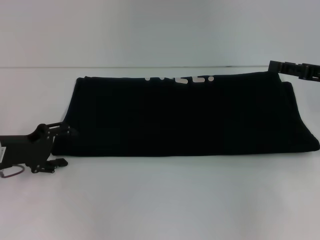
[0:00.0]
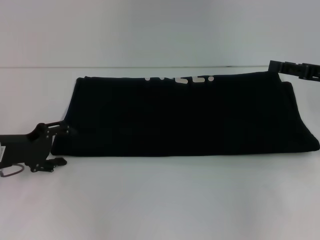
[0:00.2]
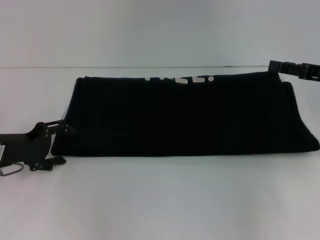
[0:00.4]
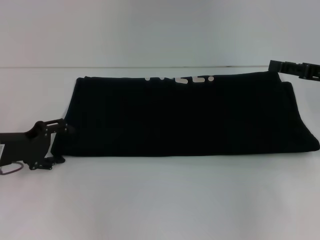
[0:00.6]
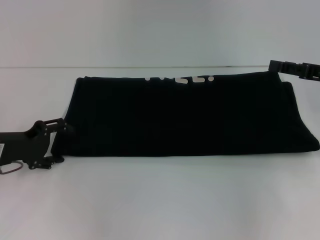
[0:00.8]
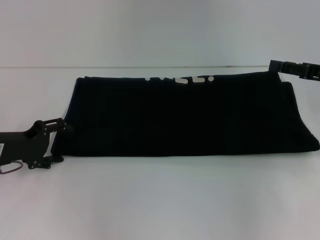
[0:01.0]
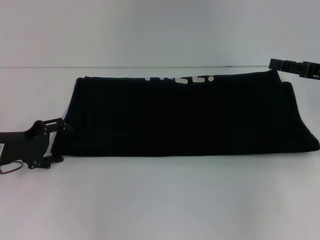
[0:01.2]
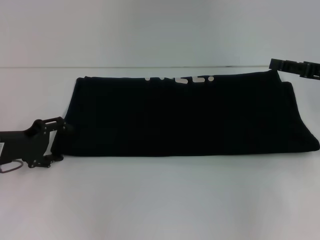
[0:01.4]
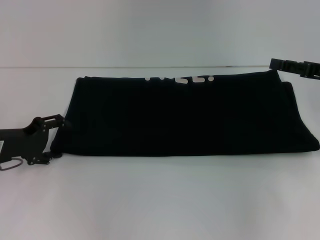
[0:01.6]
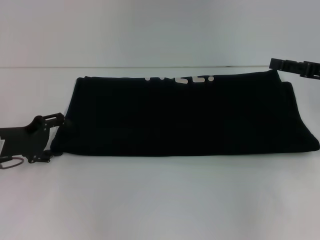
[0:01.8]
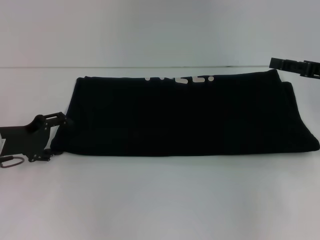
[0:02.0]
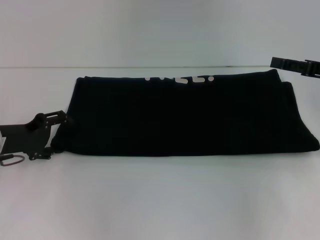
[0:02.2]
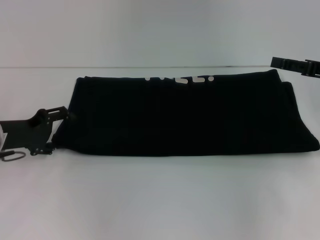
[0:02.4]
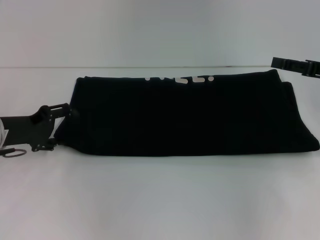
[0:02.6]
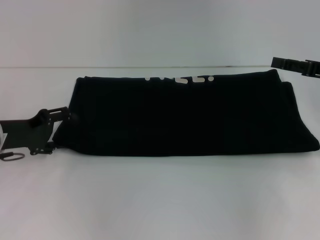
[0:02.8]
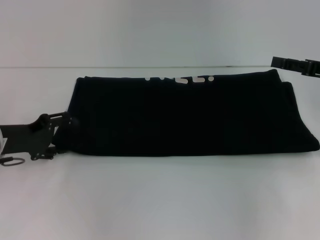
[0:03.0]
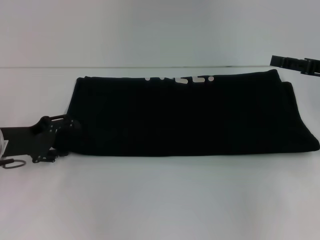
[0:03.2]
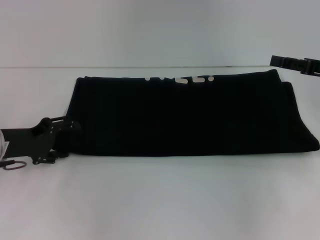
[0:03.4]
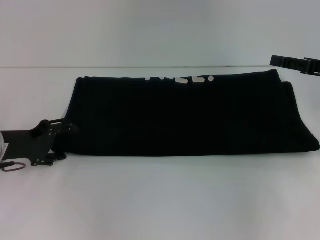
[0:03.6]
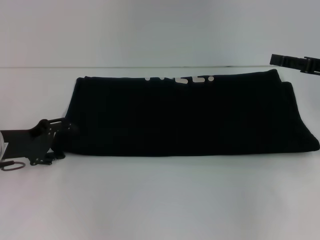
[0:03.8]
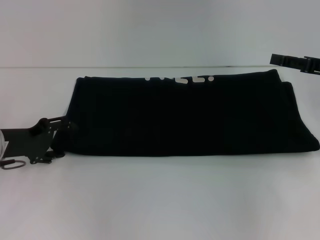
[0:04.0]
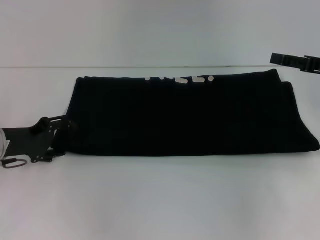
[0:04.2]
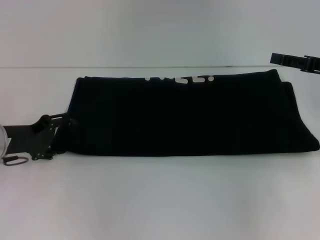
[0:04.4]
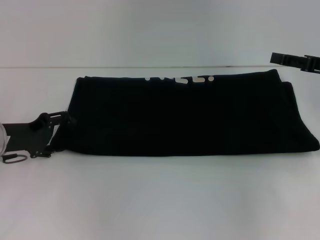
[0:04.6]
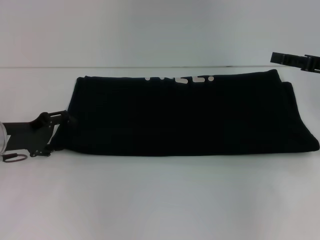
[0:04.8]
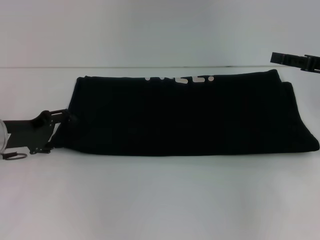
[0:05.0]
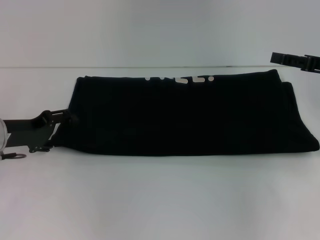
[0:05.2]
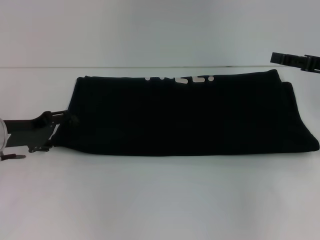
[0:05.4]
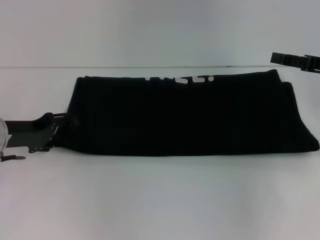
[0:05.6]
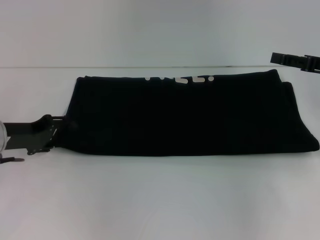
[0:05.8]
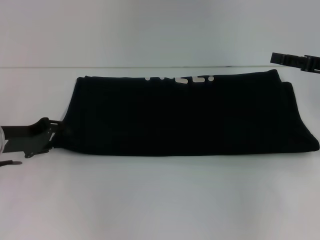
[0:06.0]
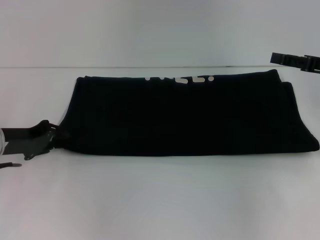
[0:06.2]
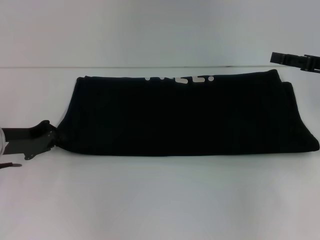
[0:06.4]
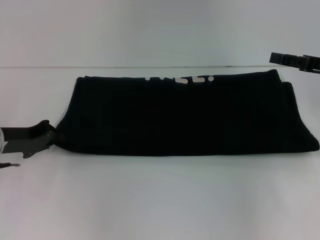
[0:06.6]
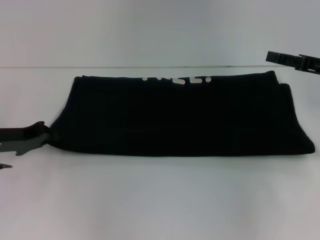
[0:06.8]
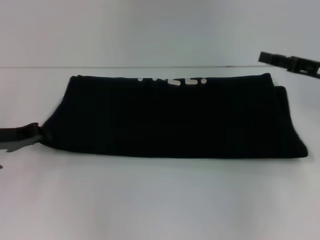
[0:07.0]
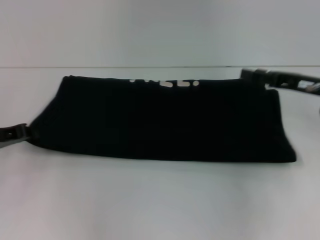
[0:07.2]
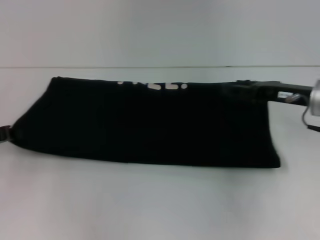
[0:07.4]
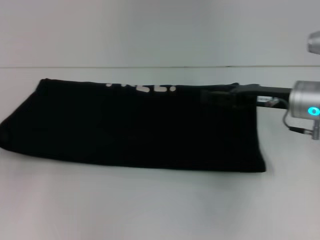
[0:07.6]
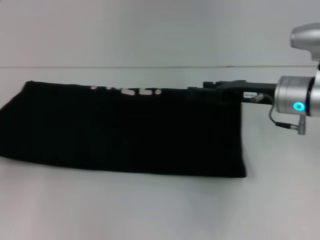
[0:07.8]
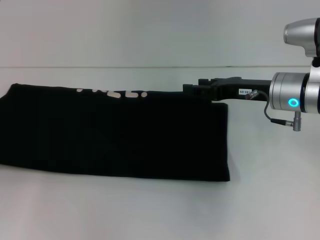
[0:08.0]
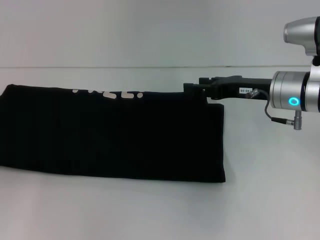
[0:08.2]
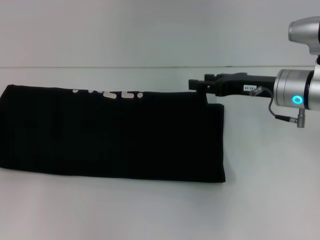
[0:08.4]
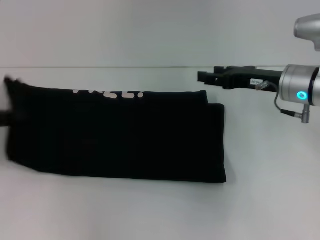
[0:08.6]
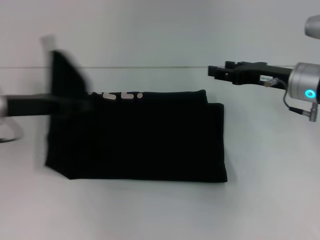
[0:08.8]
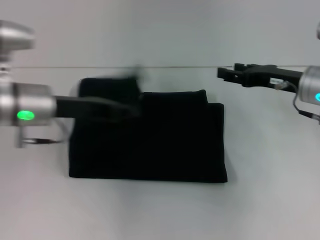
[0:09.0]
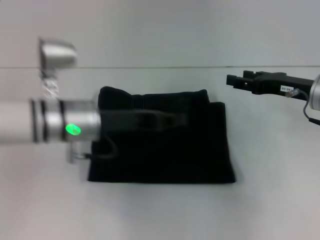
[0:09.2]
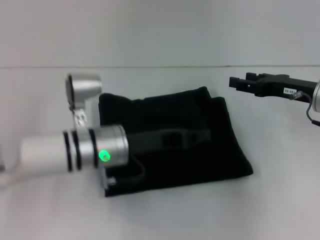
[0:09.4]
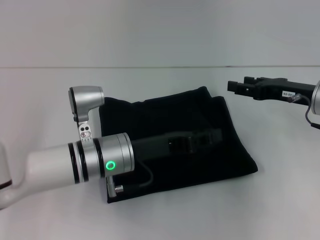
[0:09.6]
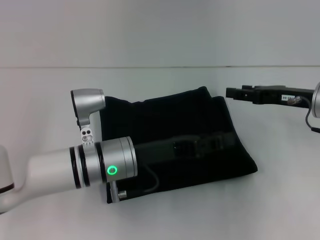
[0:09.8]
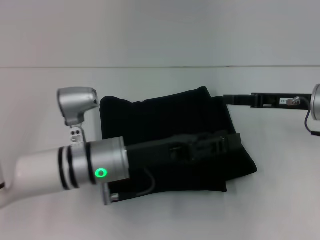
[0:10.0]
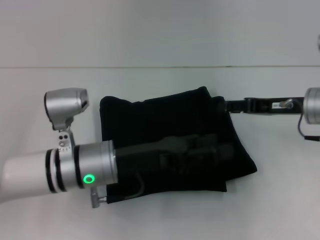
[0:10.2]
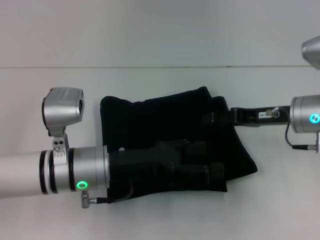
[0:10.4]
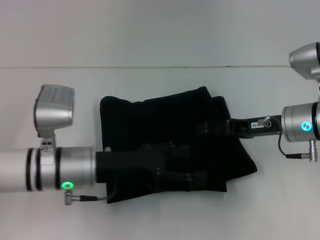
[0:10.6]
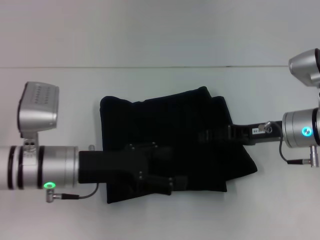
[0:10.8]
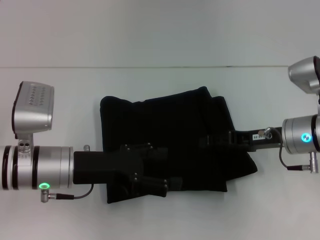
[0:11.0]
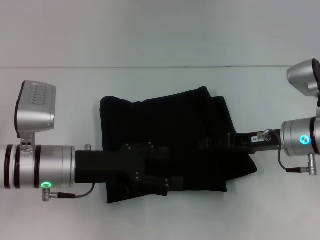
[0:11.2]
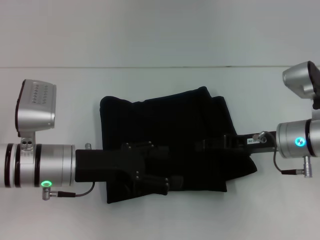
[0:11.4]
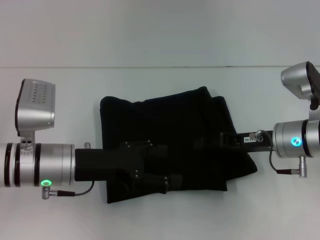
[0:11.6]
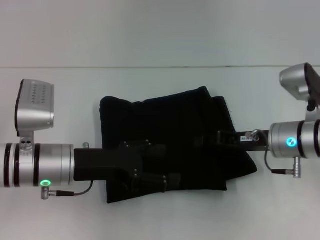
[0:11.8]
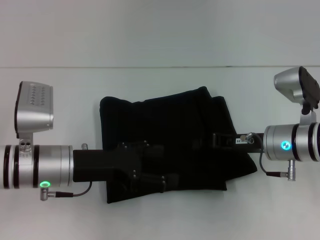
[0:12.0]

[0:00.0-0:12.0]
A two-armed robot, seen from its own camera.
Step, 0:00.0 to 0:10.4: Fold the clothes with your left hand.
0:00.0 to 0:01.6: The two grippers keep their place.
0:01.6 to 0:03.0: The grippers make only small movements.
0:03.0 to 0:04.4: Both grippers stay put.
0:04.4 to 0:06.0: The grippers move only a little.
0:06.0 to 0:07.6: Both grippers travel together to the left, approximately 10 cm. The left gripper closes its fingers.
0:07.6 to 0:09.0: The left gripper shifts about 15 cm to the right.
0:09.0 to 0:10.4: The left gripper heads to the right, downward and backward, covering roughly 10 cm, and opens its fingers.
0:10.4 to 0:12.0: The left gripper shifts by some 5 cm; the right gripper moves approximately 5 cm, and closes up.

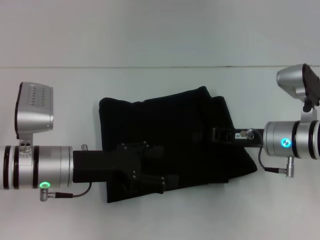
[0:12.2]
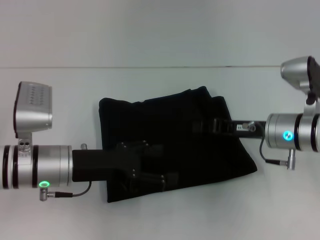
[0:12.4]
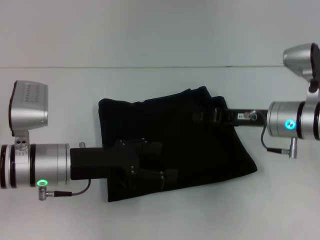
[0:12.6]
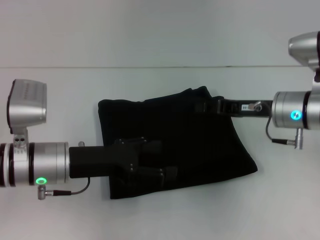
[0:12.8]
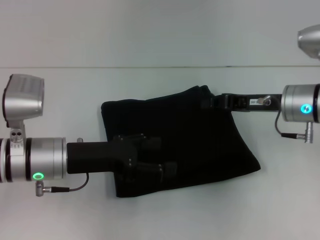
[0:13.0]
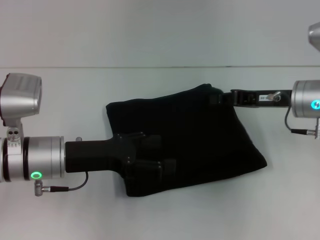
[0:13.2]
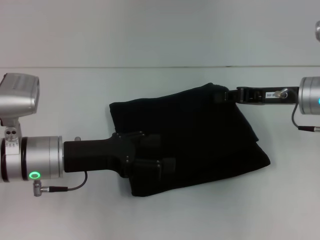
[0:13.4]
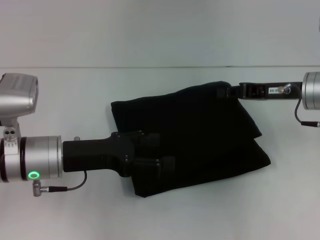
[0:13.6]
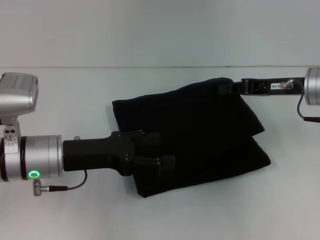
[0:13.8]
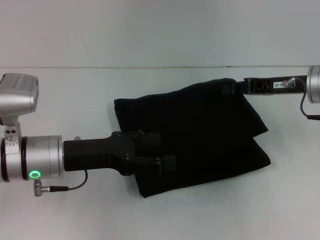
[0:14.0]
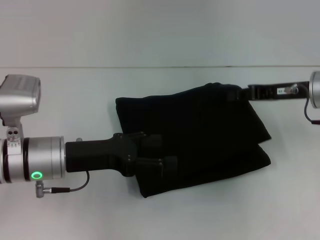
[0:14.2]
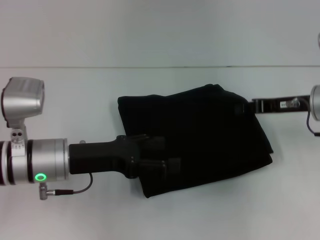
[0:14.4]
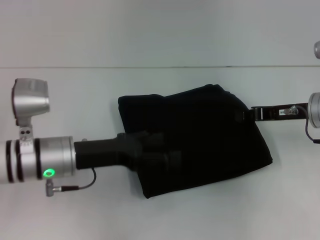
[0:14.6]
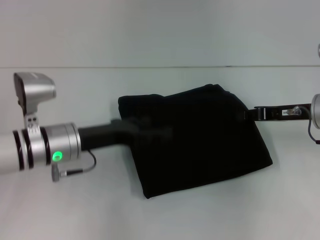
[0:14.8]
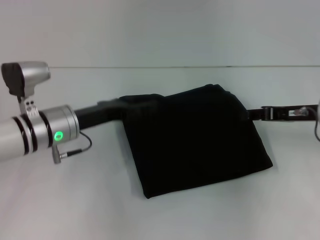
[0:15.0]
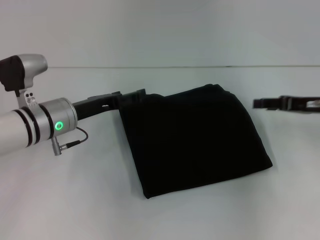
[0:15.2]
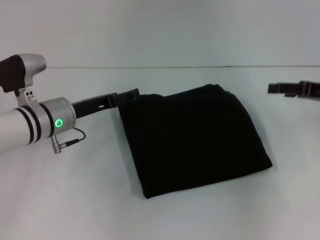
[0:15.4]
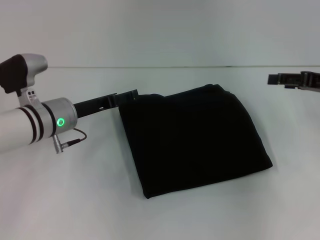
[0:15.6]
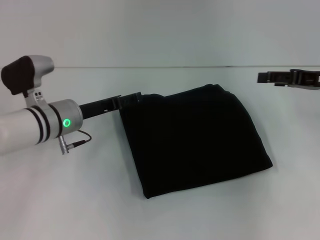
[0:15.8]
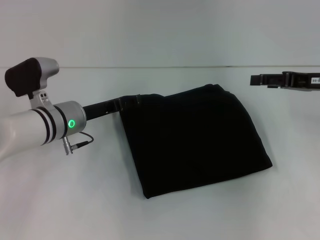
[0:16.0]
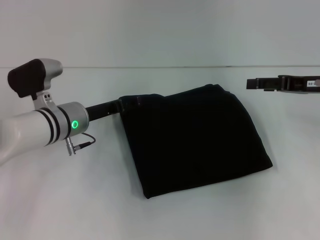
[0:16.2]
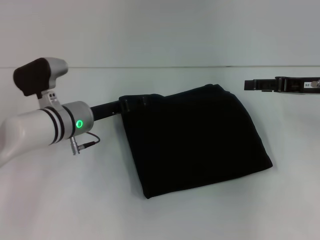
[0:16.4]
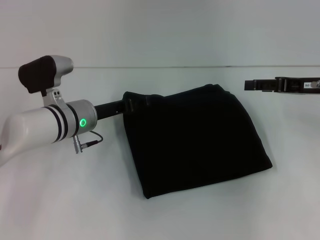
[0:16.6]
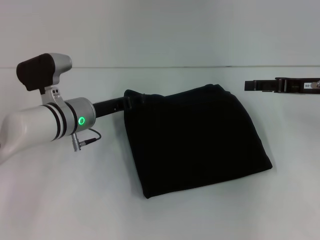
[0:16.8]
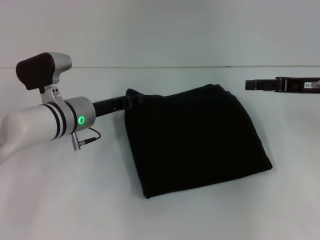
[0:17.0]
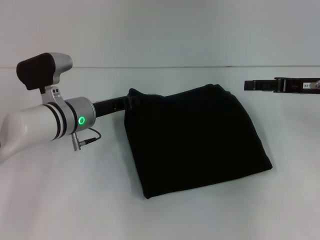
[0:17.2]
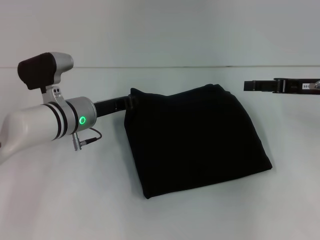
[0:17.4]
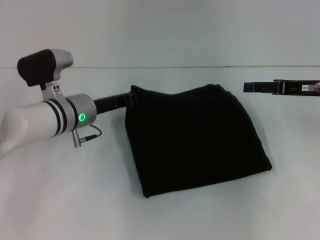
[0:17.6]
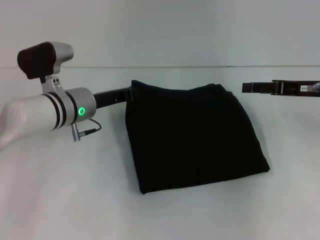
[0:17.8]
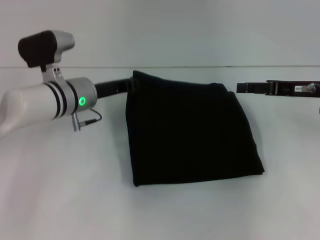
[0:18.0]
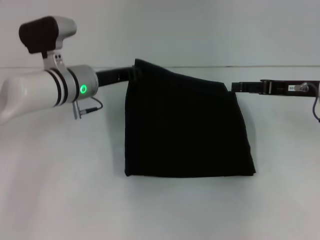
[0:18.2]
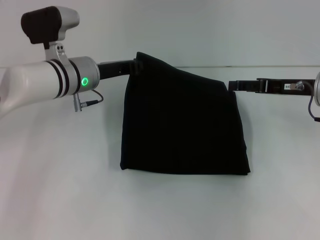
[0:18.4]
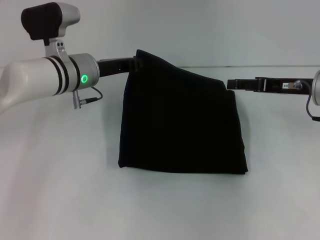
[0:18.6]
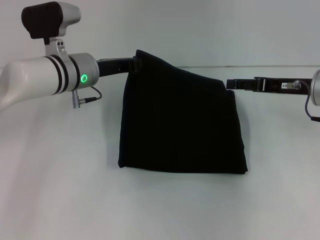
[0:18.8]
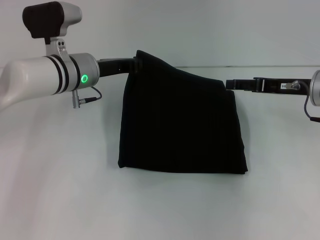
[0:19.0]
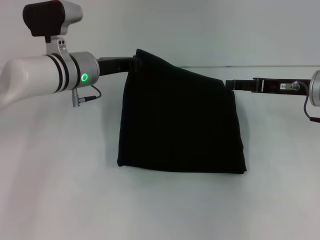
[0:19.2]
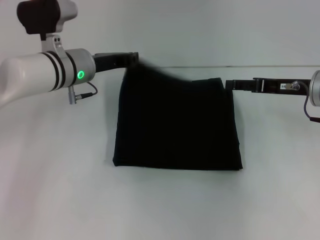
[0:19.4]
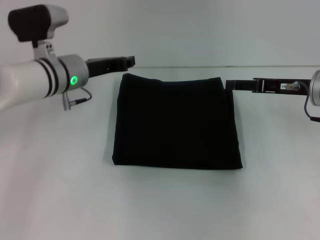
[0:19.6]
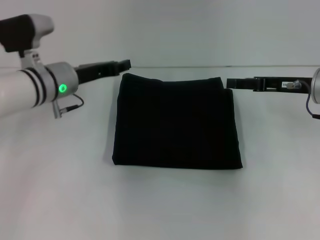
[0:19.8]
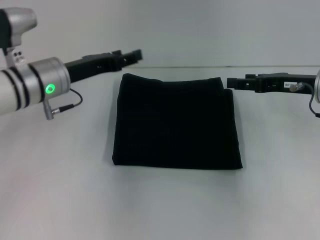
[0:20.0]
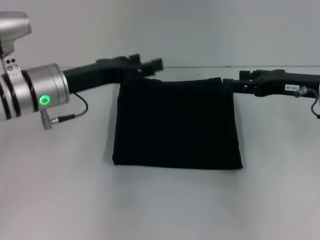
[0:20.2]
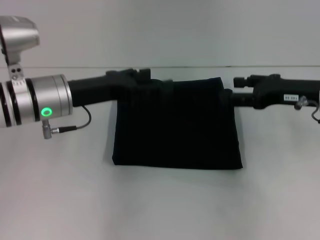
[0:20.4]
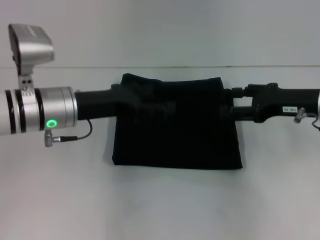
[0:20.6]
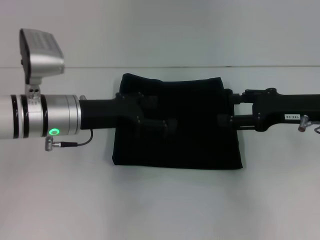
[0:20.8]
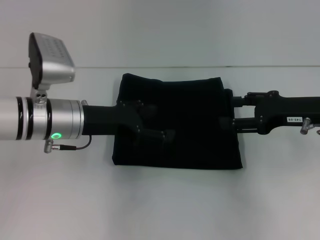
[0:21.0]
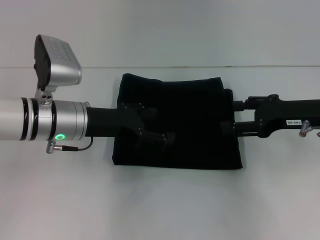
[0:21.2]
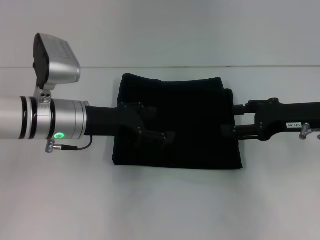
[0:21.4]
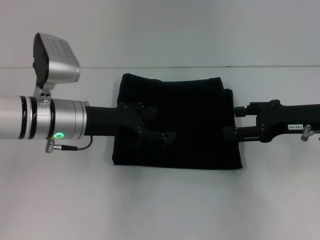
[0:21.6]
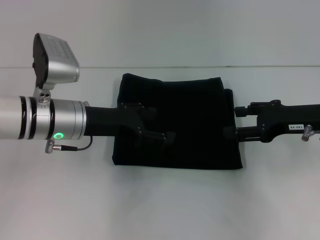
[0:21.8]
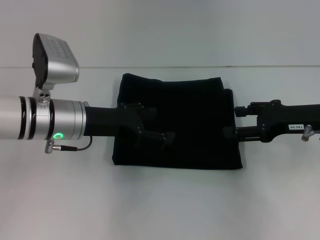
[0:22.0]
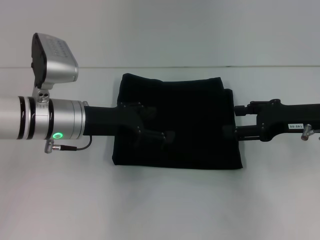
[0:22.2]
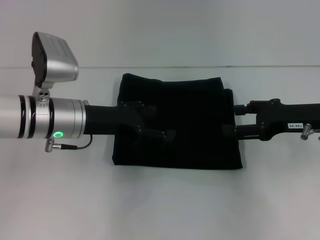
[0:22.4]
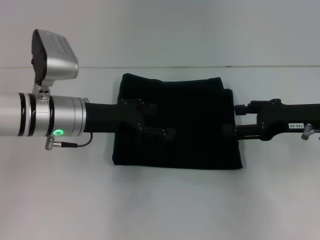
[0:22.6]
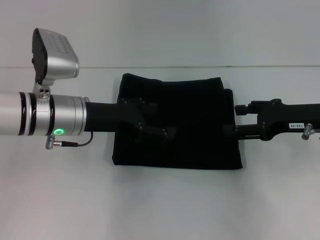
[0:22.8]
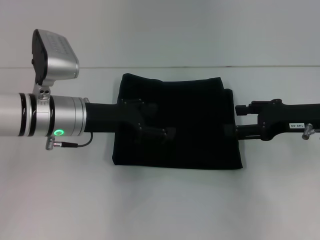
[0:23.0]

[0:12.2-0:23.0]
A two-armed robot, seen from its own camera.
0:12.2 to 0:13.8: The right gripper shifts approximately 5 cm upward.
0:13.8 to 0:15.2: The right gripper heads to the right, covering roughly 5 cm. The left gripper moves forward, roughly 5 cm.
0:15.2 to 0:16.8: The right gripper opens its fingers.
0:16.8 to 0:18.4: The left gripper is displaced upward by some 5 cm, and closes.
0:18.4 to 0:20.0: The left gripper moves approximately 5 cm, and opens up.
0:20.0 to 0:21.4: The left gripper opens its fingers.
0:21.4 to 0:23.0: The two grippers keep their place.
